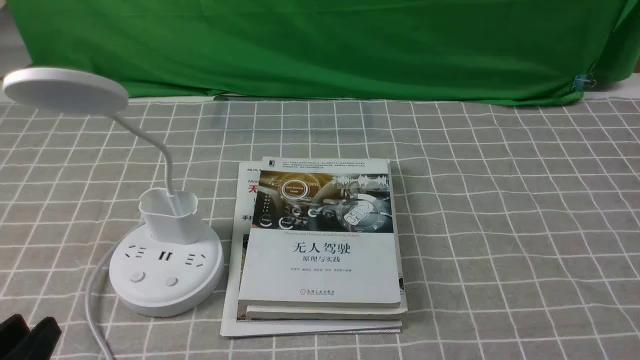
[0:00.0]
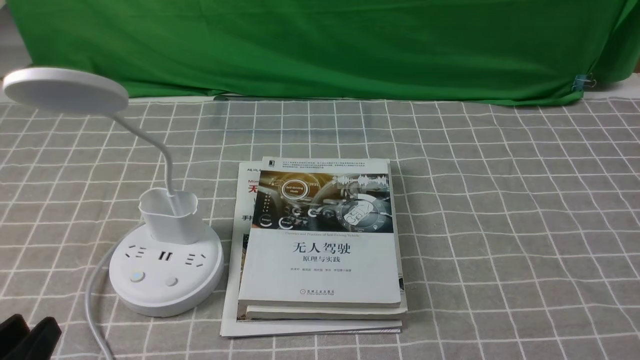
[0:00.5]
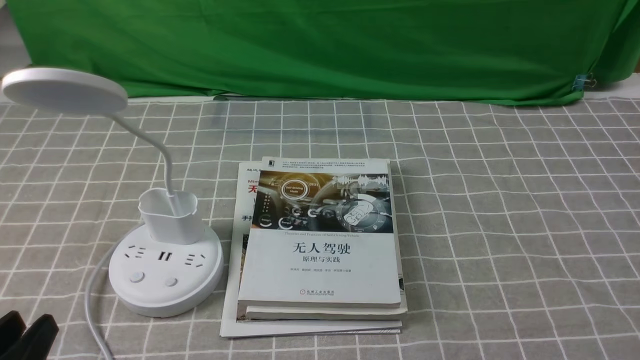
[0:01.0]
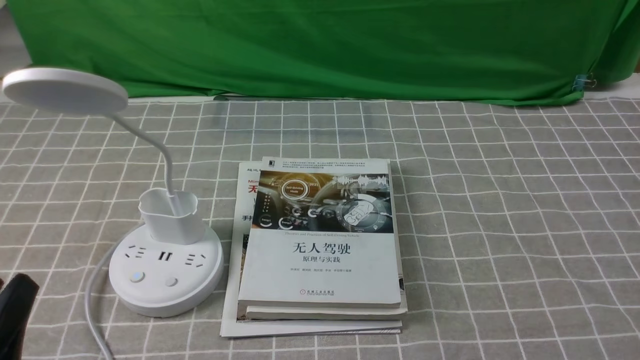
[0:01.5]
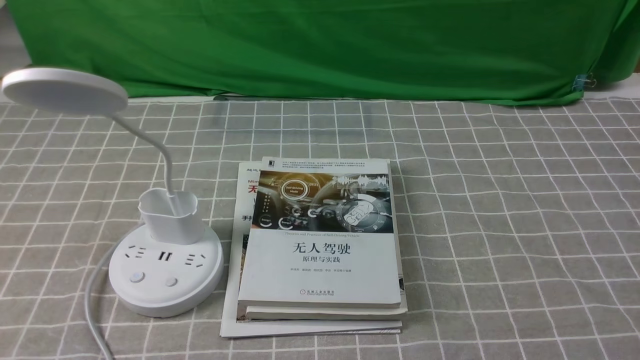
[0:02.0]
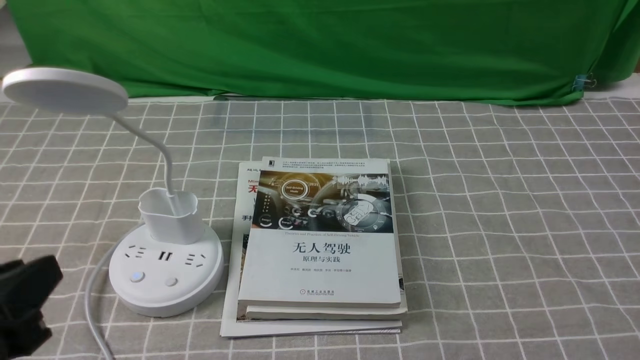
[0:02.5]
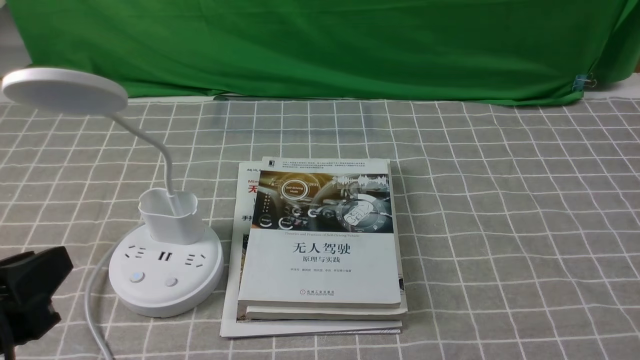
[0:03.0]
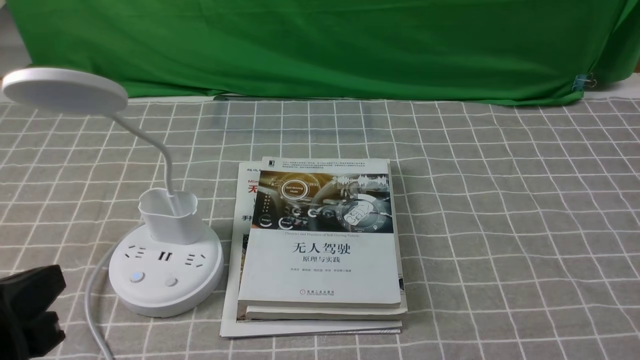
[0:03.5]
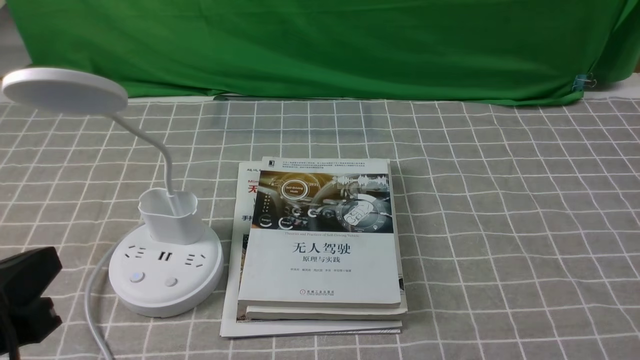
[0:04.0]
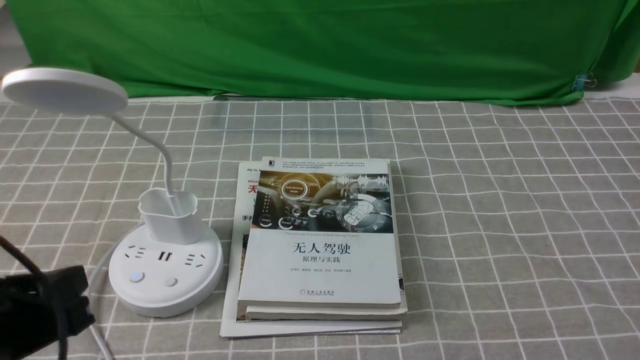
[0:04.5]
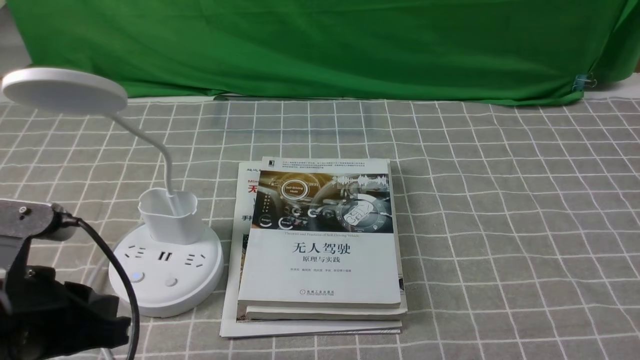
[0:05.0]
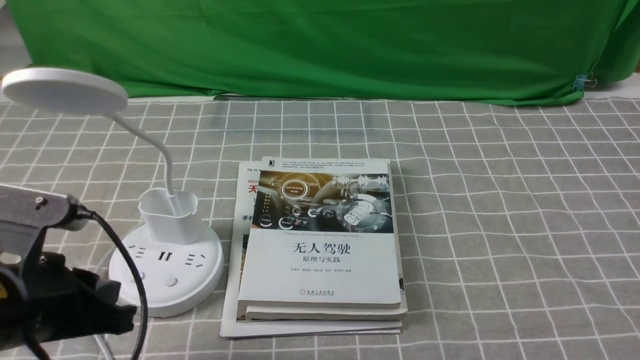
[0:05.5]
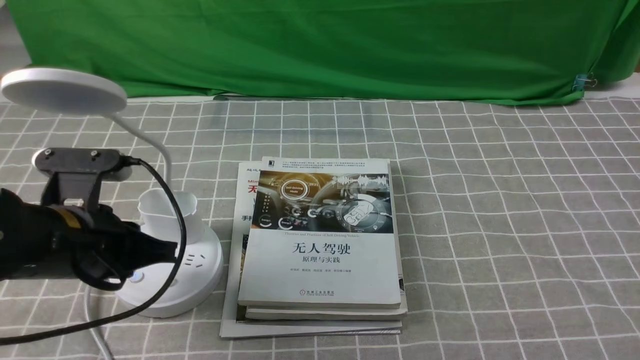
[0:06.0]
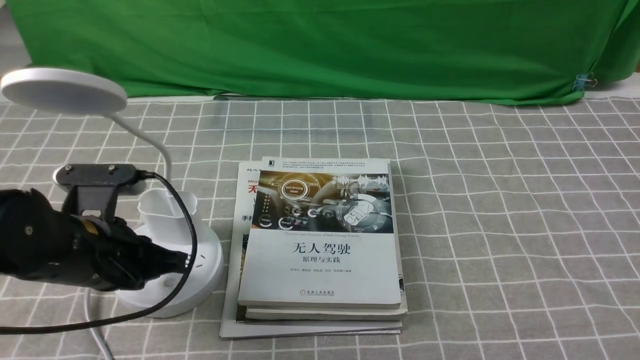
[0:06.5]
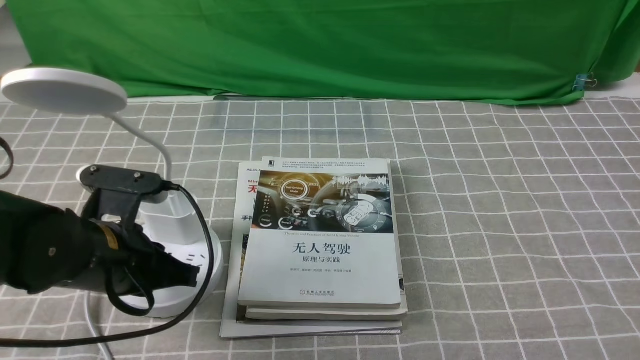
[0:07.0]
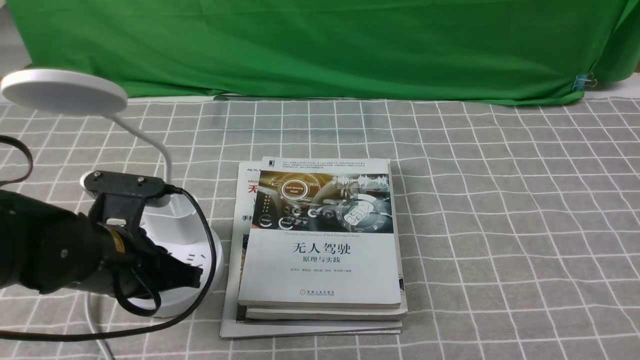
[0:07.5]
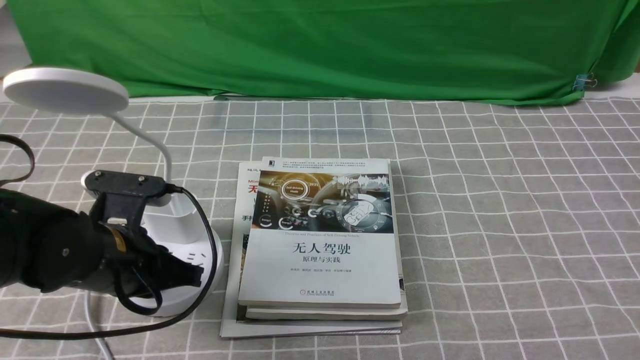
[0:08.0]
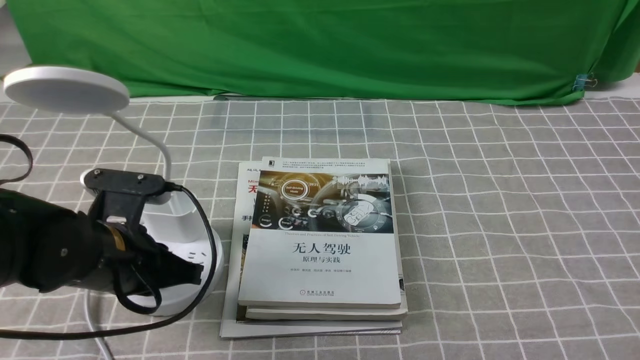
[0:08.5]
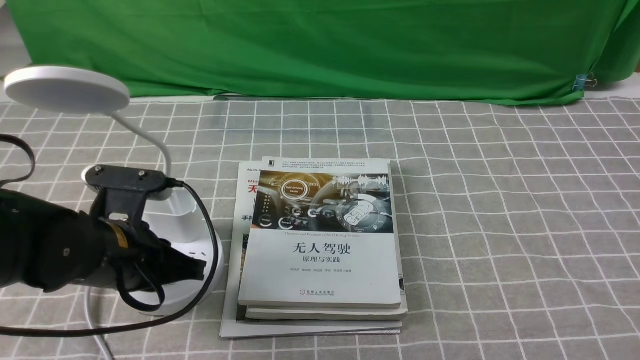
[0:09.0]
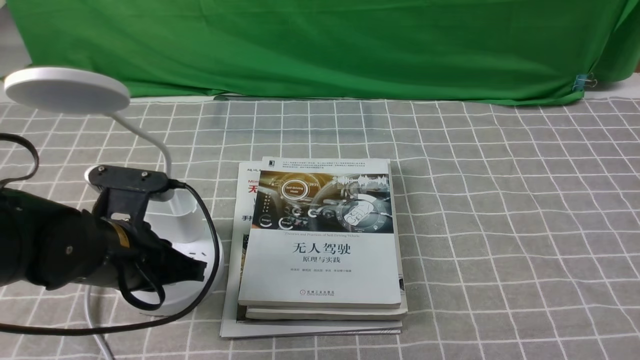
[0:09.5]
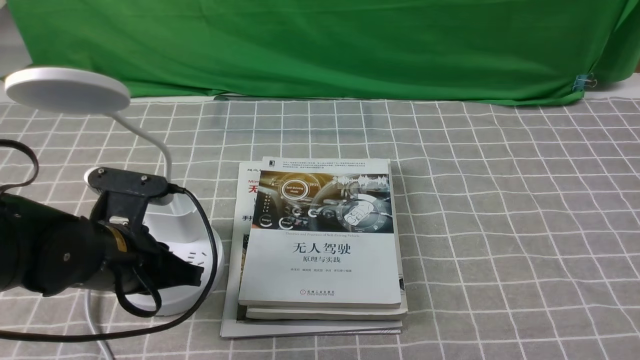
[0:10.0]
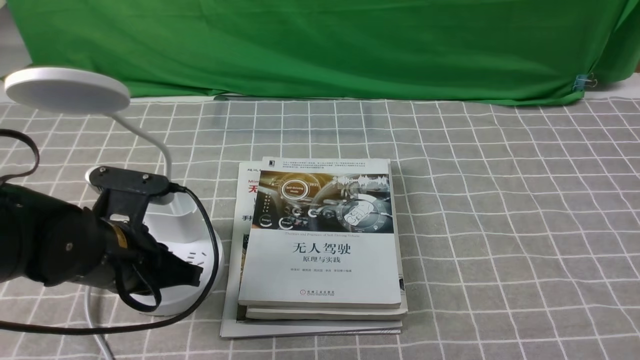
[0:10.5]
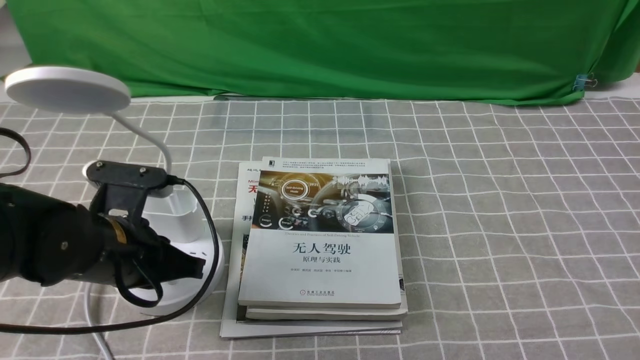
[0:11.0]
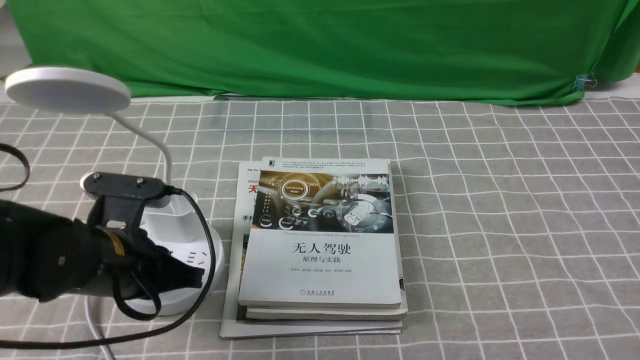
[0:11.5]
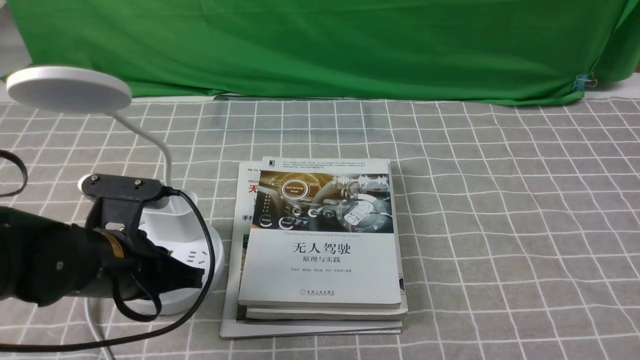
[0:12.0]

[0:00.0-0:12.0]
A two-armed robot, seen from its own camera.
0:00.0 to 0:02.0: The left gripper travels upward by approximately 10 cm.
0:02.0 to 0:04.0: The left gripper closes.
0:04.0 to 0:06.0: The left gripper goes approximately 15 cm forward and downward.
0:06.0 to 0:08.0: There are only small adjustments of the grippers.
0:08.0 to 0:12.0: Both grippers stay about where they are.

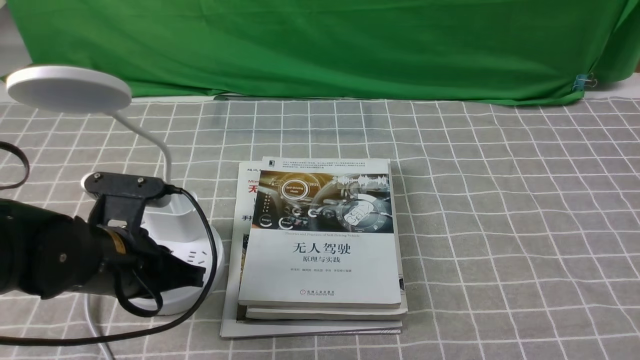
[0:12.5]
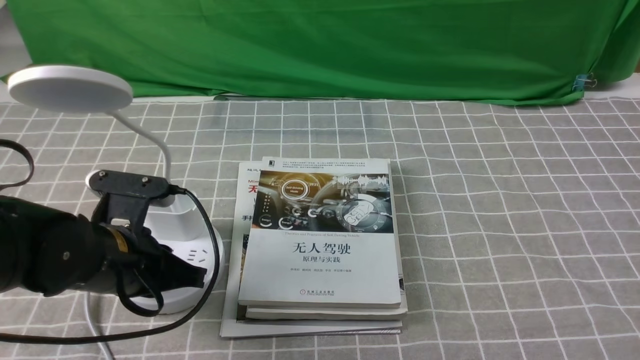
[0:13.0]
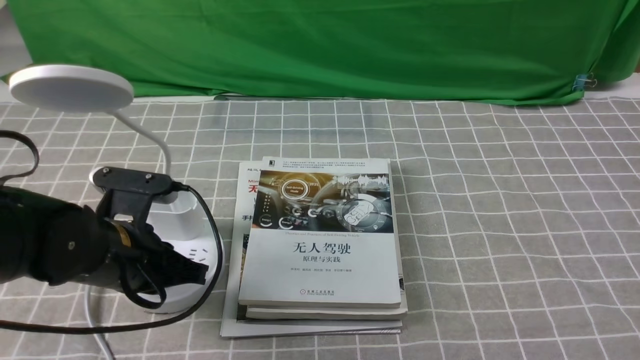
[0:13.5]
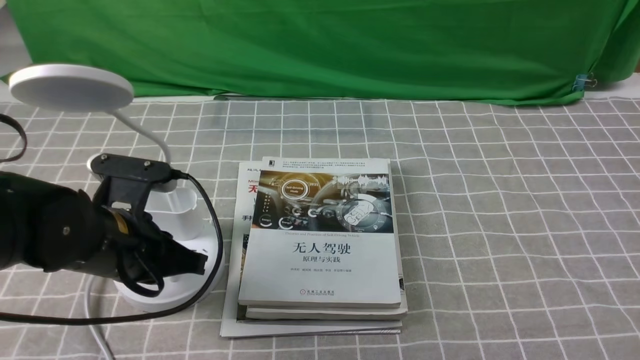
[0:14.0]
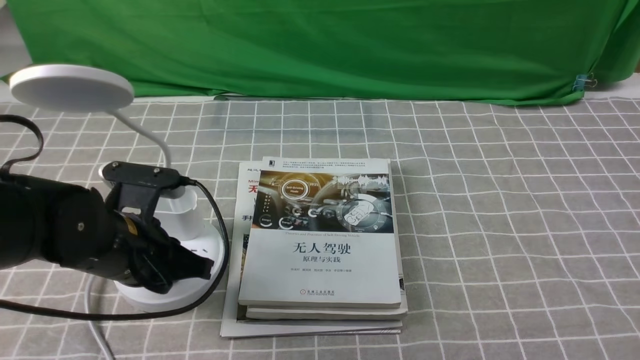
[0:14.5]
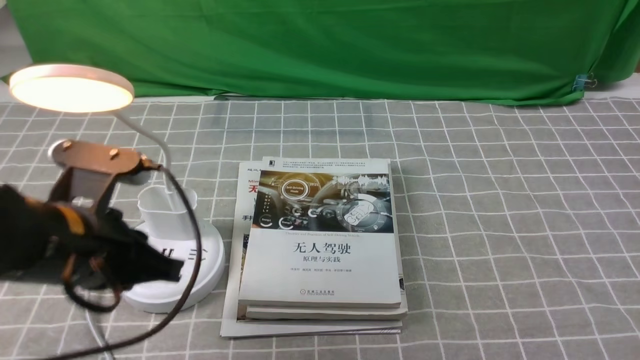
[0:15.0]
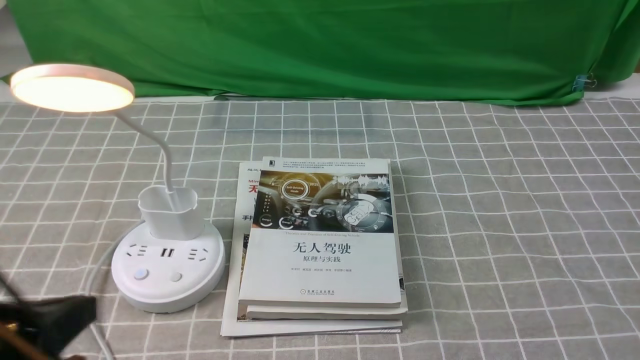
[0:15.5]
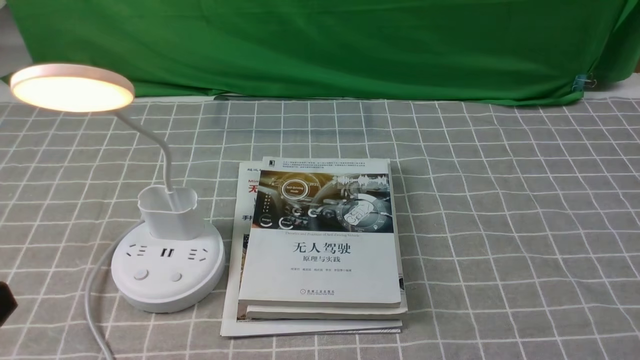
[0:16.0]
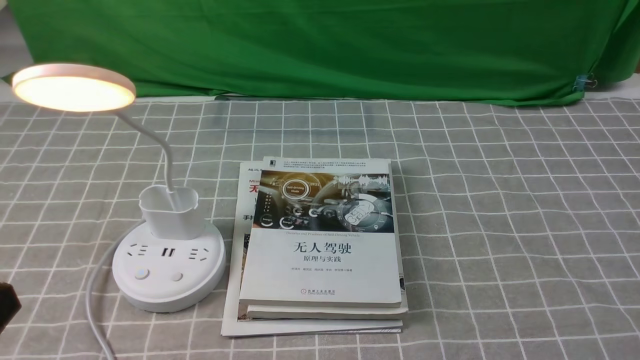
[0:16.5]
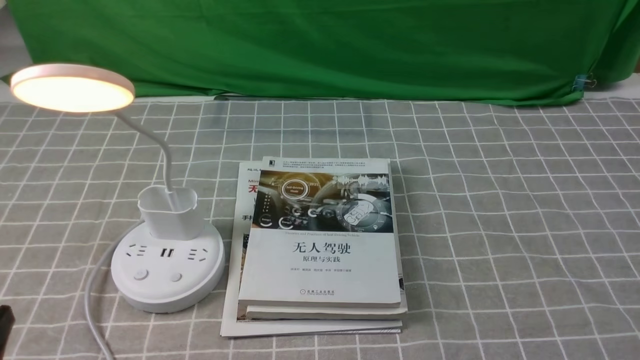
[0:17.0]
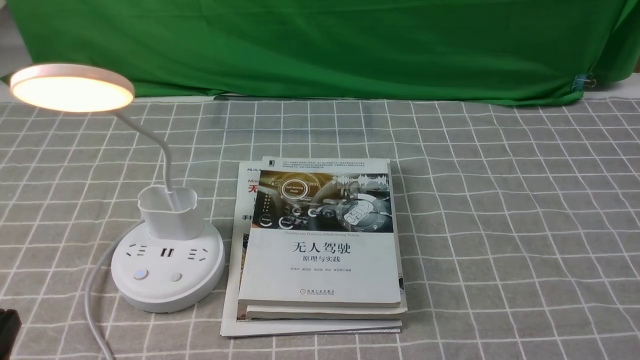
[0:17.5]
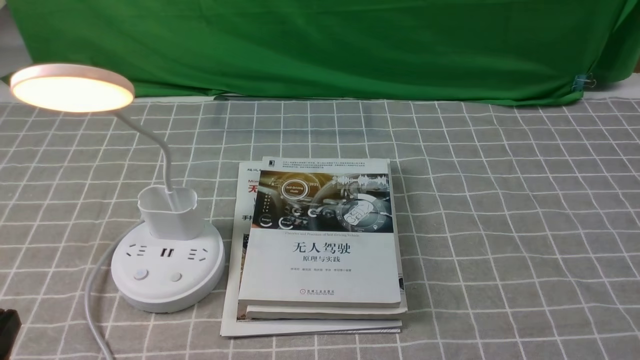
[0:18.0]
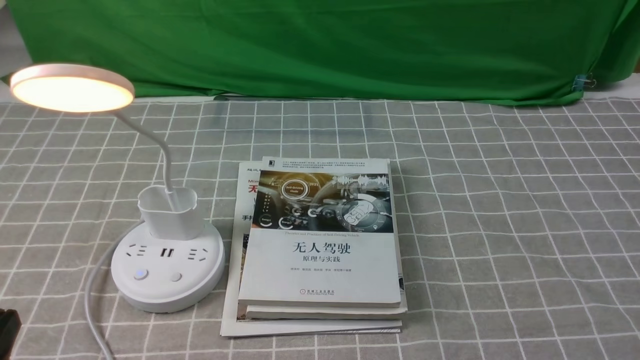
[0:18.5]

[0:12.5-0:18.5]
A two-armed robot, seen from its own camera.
Step, 0:12.5 to 0:15.0: use the left arm to press the button switch on the lamp holder.
0:12.5 to 0:14.5: The grippers stay close to where they were, moving slightly.
0:14.5 to 0:16.5: The left gripper moves backward and upward, about 25 cm.
0:16.5 to 0:18.5: The left gripper shifts some 10 cm downward.
